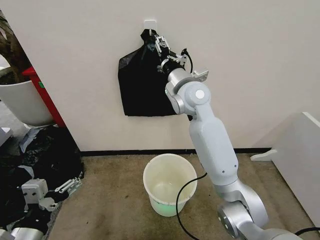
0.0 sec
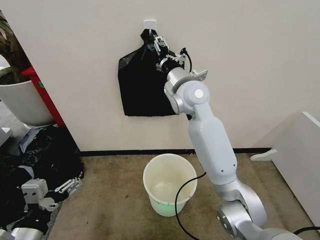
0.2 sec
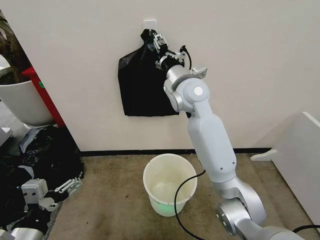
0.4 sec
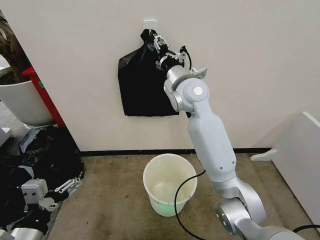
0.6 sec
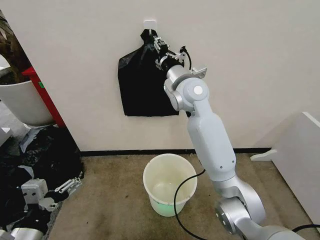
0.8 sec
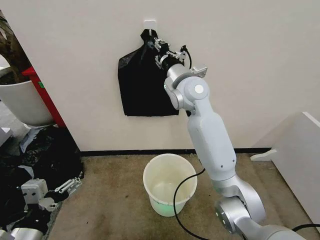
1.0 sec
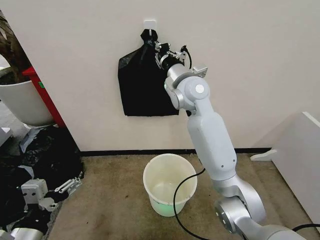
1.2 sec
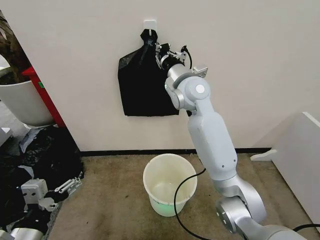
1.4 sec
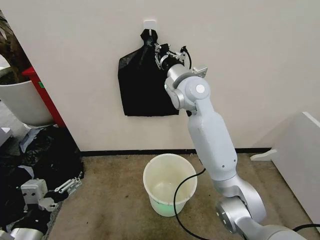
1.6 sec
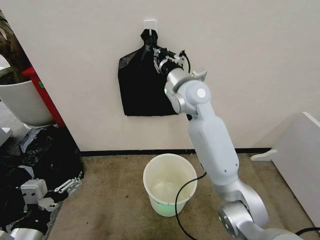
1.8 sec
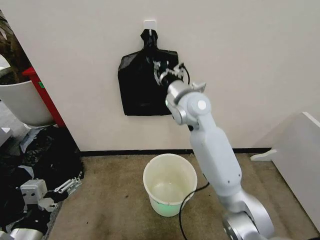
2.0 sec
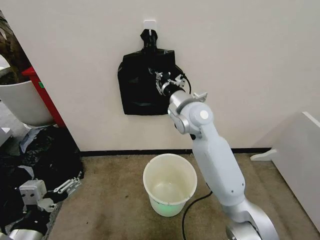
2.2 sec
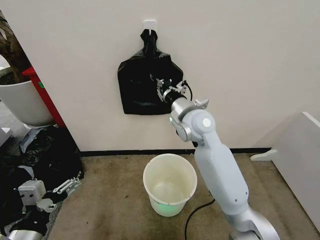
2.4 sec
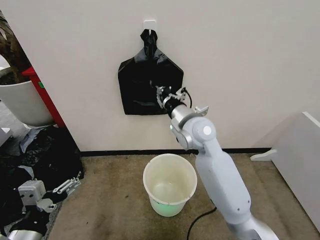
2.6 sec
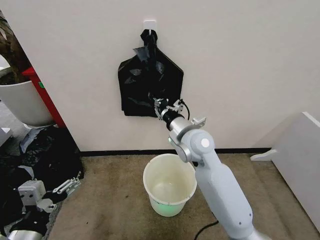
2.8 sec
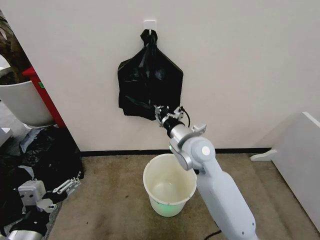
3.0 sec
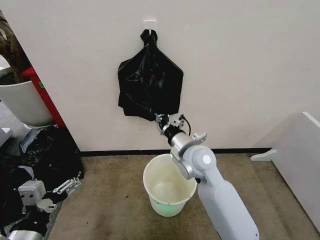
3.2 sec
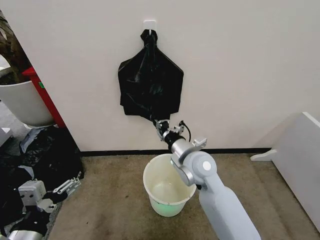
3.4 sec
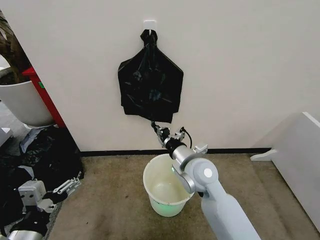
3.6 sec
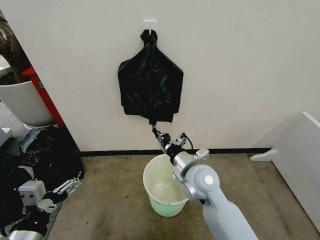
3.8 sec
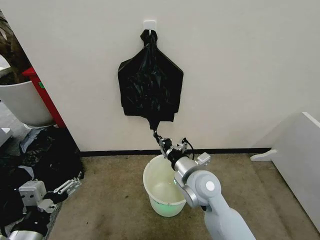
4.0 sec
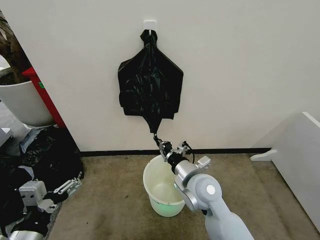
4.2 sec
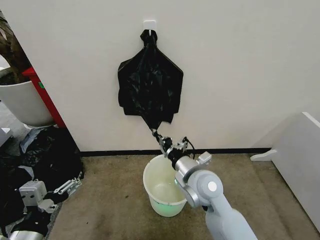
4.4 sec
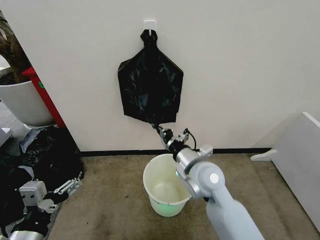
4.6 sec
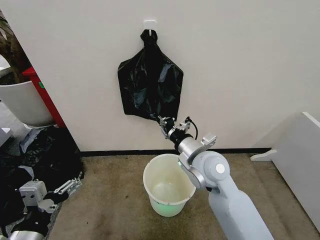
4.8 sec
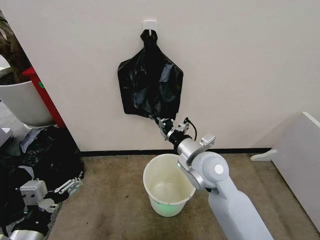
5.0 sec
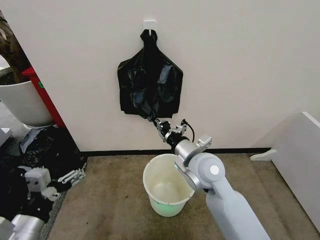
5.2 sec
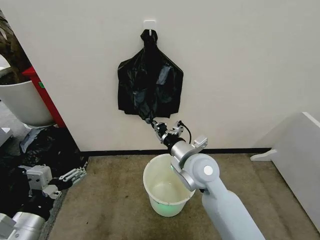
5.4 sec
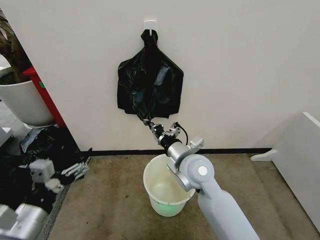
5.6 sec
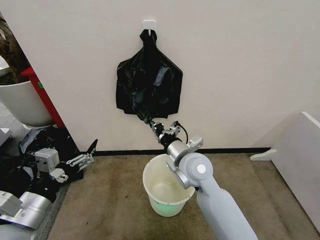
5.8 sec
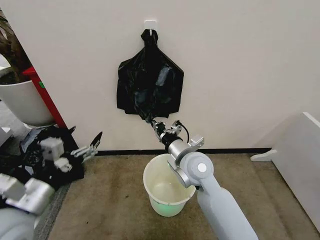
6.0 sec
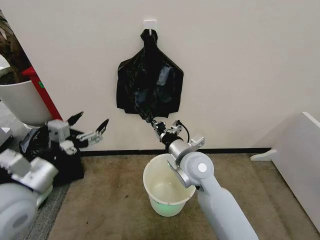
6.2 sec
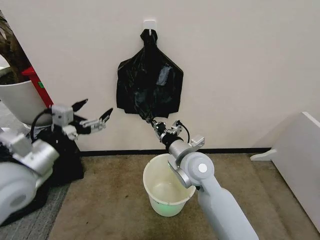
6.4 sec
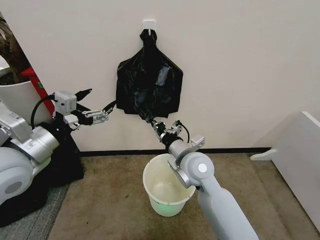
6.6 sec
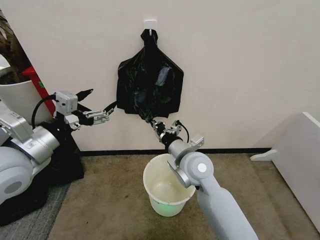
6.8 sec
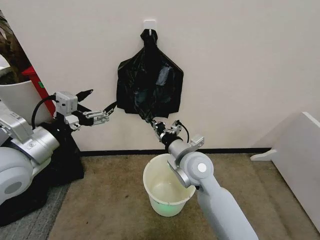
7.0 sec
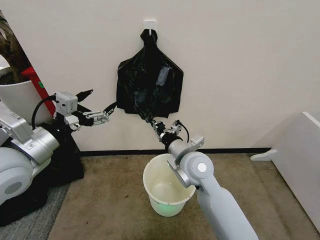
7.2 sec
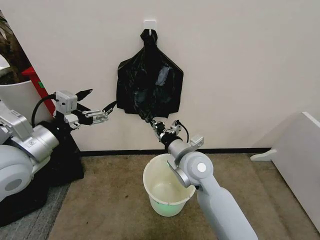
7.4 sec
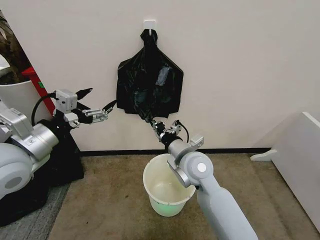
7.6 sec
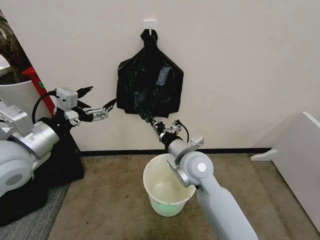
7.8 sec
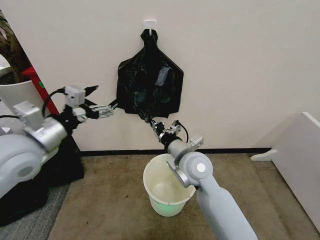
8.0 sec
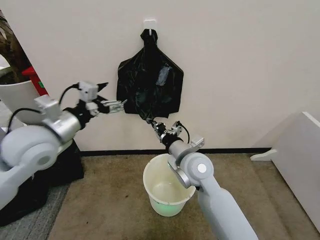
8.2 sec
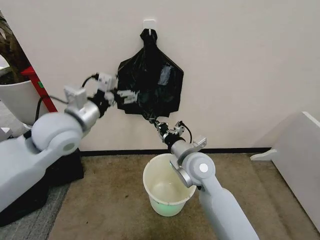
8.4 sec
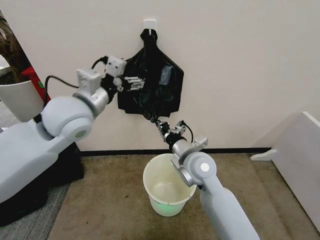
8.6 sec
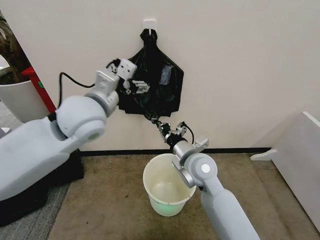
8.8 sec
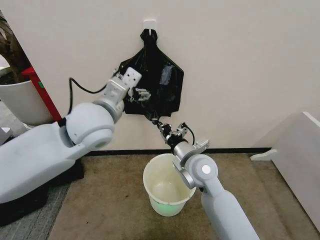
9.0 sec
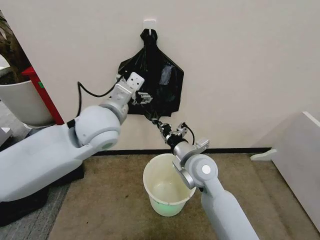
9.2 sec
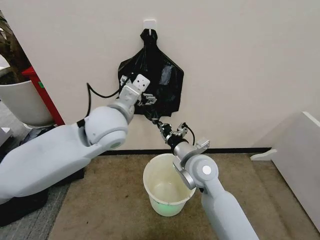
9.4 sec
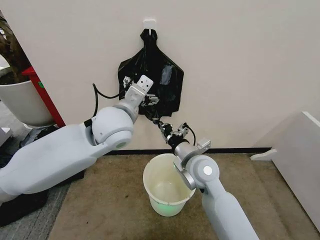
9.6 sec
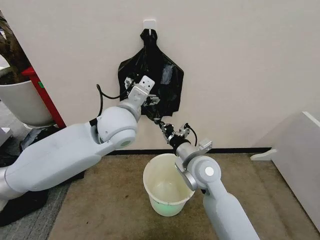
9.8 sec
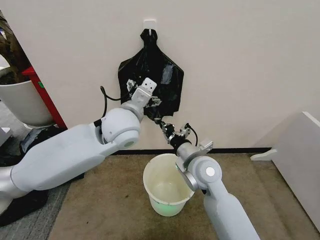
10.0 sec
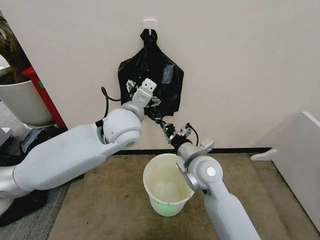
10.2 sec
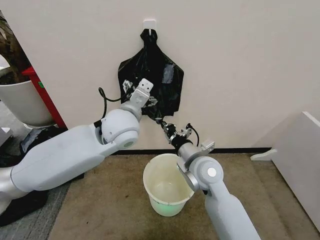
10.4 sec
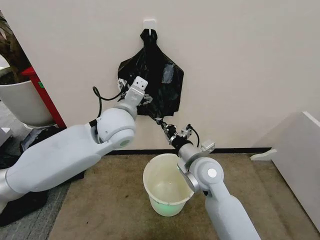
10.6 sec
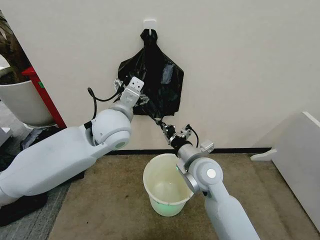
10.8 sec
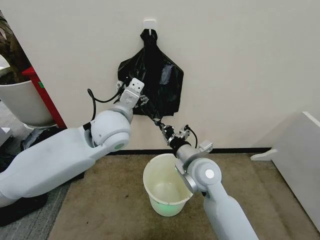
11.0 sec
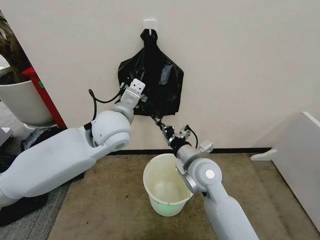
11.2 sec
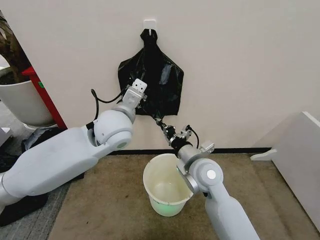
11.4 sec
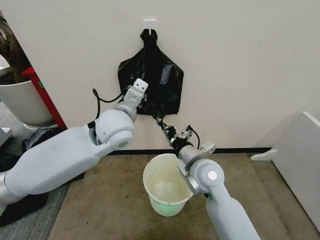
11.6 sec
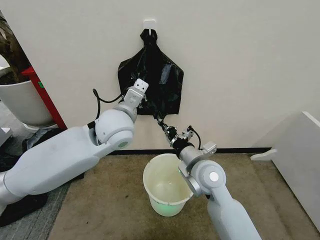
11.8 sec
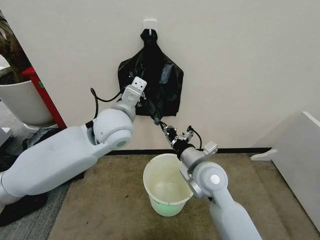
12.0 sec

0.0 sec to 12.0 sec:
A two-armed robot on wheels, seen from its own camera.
Task of the whole recording: Place the garbage bag over the trash bin.
0.0 sec to 1.6 sec: The right gripper closes.
1.6 sec to 3.0 sec: The right gripper travels downward and backward by roughly 15 cm.
3.0 sec to 4.4 sec: The right gripper heads backward and downward, covering approximately 10 cm.
4.4 sec to 6.0 sec: The right gripper ends up roughly 5 cm from where it was; the left gripper heads forward and upward, covering roughly 10 cm.
6.0 sec to 7.6 sec: The left gripper is displaced upward and forward by approximately 10 cm.
7.6 sec to 9.0 sec: The left gripper goes some 20 cm to the right and forward.
9.0 sec to 10.4 sec: The left gripper shifts some 5 cm to the right.
10.4 sec to 12.0 sec: The left gripper closes.

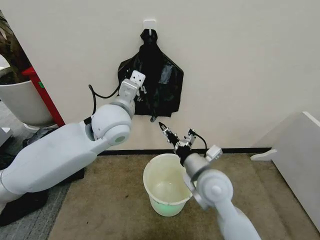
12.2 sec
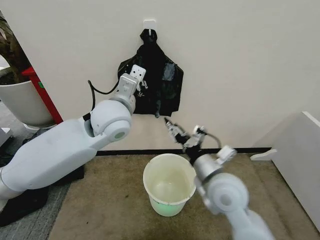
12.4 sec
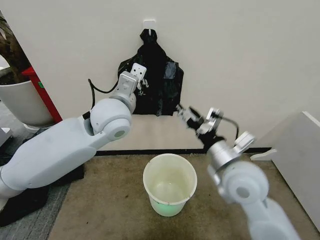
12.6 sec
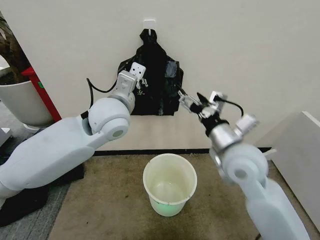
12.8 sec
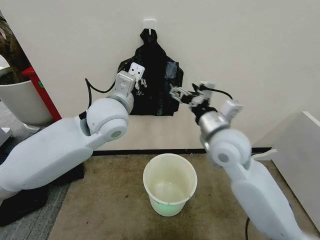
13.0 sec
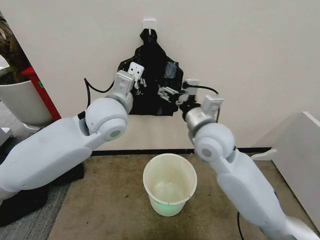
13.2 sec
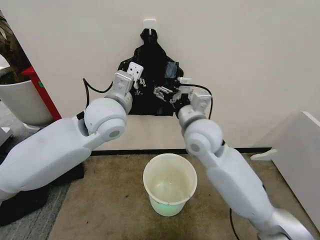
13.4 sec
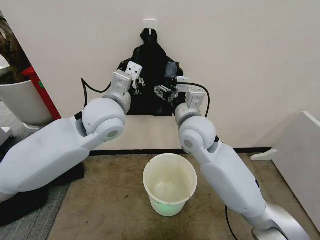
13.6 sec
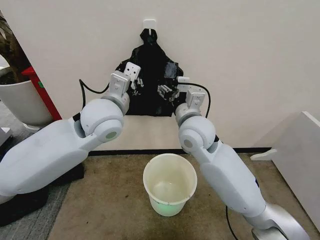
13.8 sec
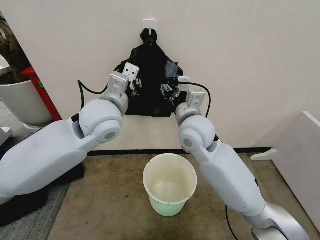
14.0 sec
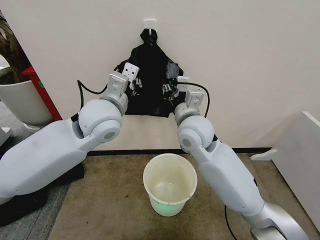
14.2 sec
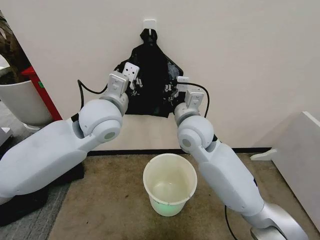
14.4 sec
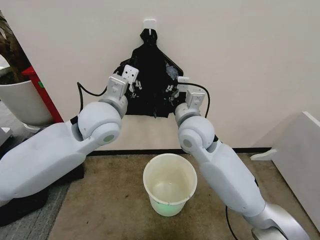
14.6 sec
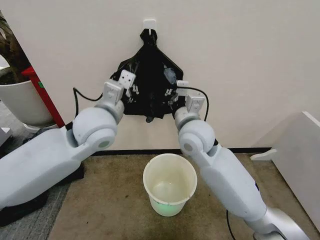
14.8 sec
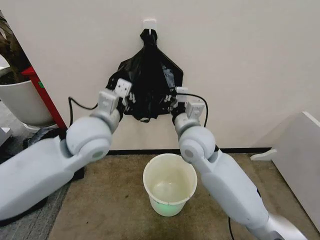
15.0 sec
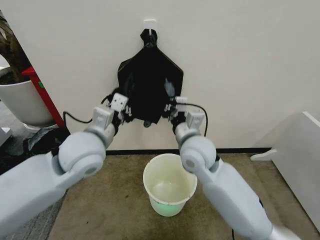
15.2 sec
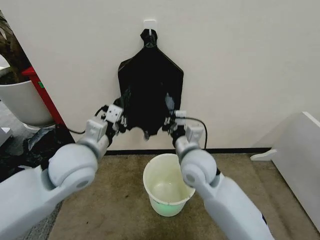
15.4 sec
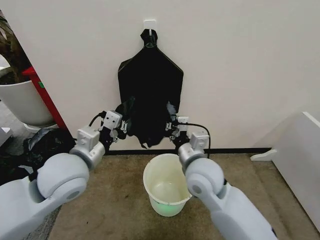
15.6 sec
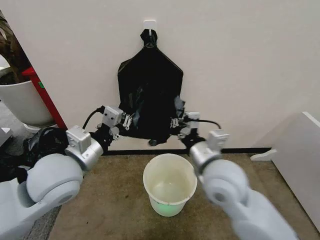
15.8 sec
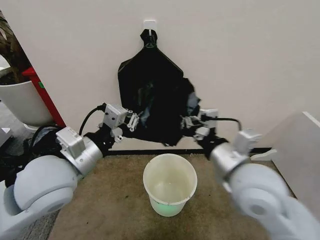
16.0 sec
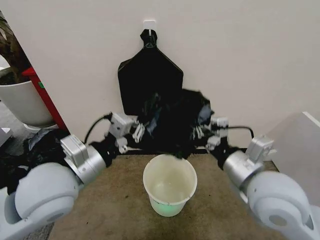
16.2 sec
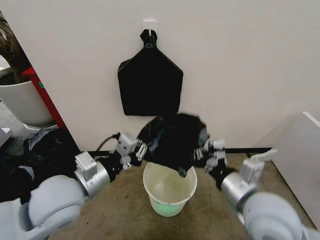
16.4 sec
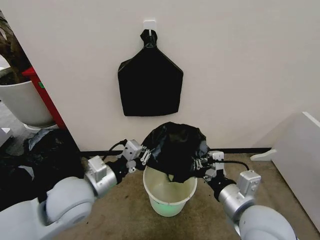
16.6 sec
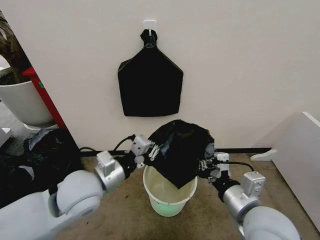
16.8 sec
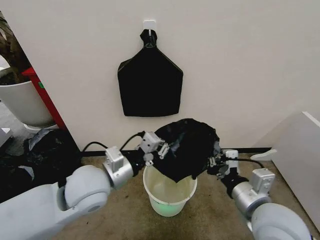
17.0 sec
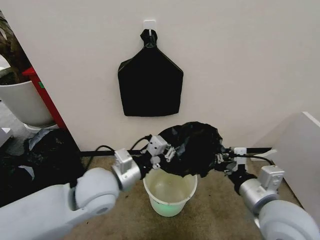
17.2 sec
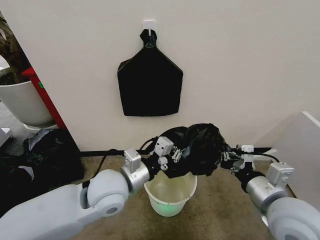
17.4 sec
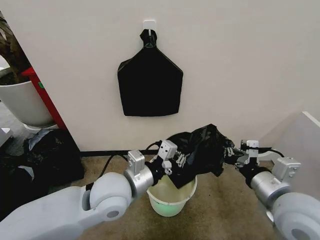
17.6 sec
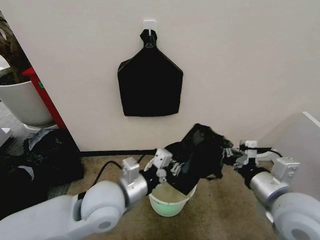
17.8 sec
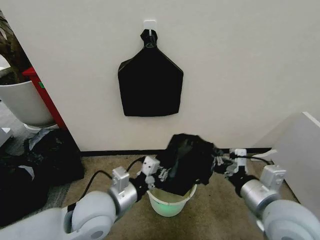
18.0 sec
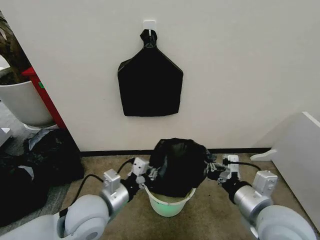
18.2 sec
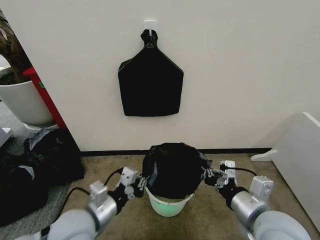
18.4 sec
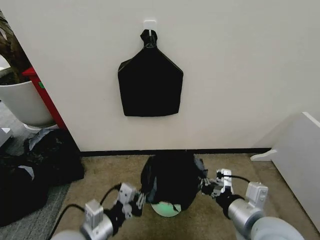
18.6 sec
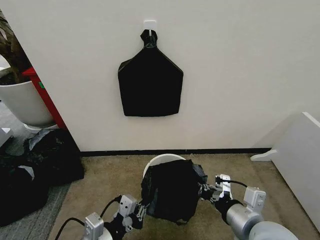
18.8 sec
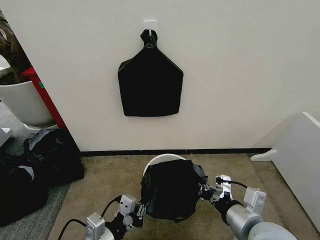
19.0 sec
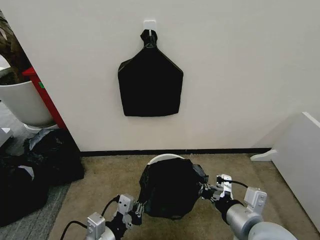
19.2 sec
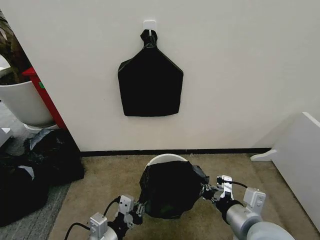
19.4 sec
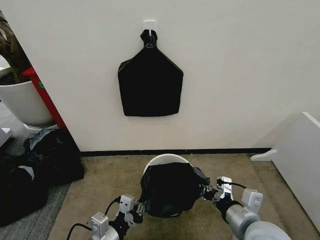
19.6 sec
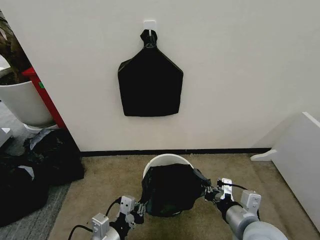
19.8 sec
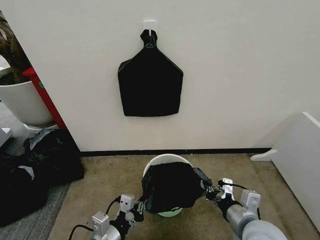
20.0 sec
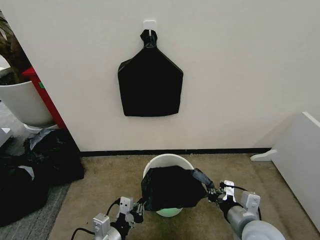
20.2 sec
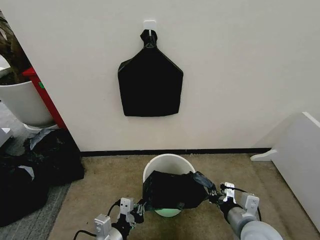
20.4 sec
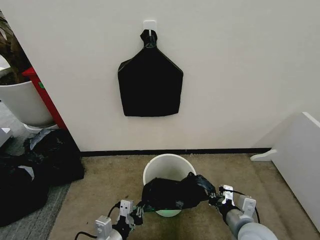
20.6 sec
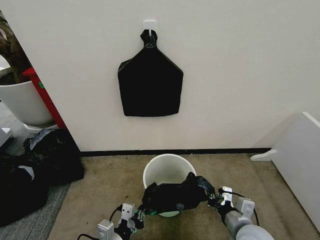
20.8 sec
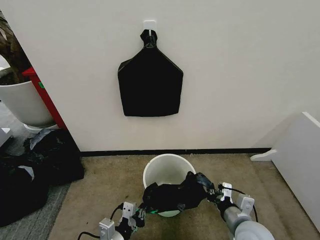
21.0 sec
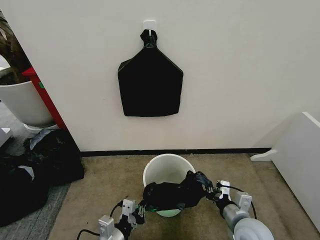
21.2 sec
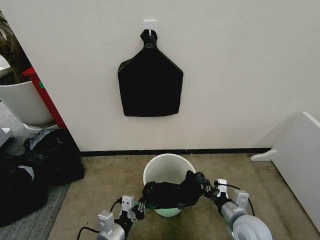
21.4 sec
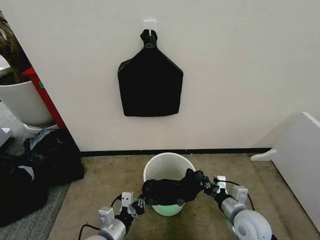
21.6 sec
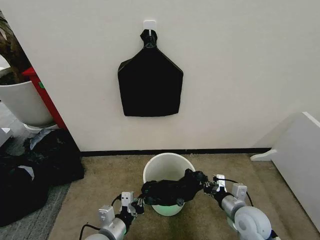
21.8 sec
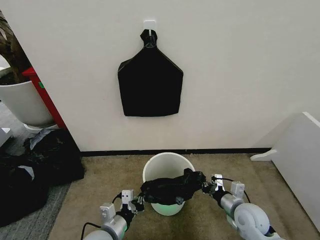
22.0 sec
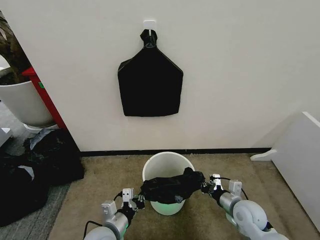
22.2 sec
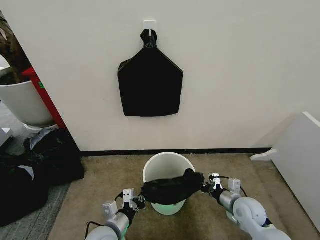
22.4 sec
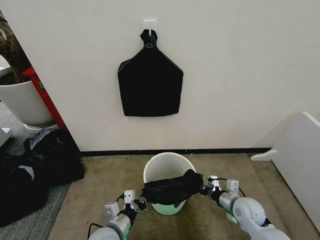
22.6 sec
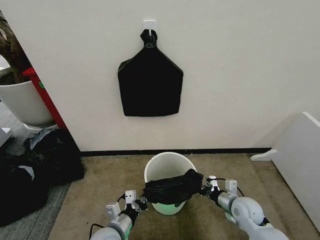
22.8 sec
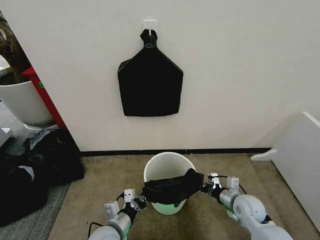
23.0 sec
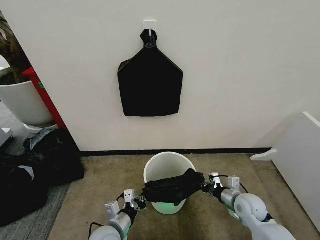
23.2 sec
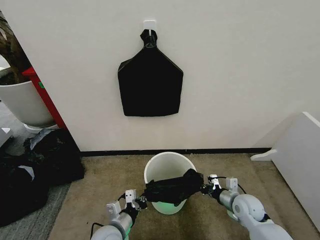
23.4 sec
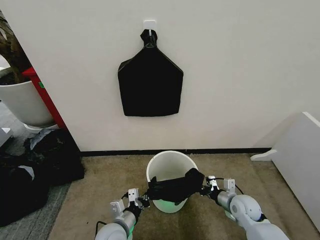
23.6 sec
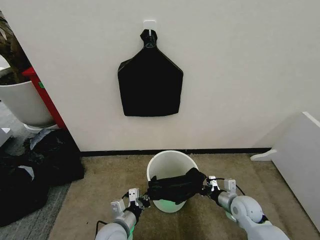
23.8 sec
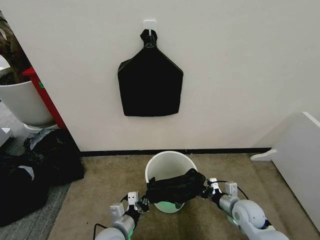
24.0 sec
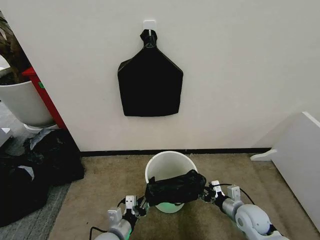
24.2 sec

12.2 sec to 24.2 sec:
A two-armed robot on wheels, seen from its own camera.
Task of the whole recording: Place the garbage bag over the trash bin.
12.2 sec to 13.8 sec: The right gripper heads upward and forward, covering approximately 15 cm, and opens.
13.8 sec to 15.2 sec: The left gripper heads backward and downward, covering some 10 cm, while the right gripper travels downward by approximately 5 cm, and closes.
15.2 sec to 16.6 sec: The left gripper shifts approximately 10 cm downward and backward. Meanwhile the right gripper goes some 20 cm backward and to the right.
16.6 sec to 18.2 sec: The left gripper goes to the right and returns, roughly 10 cm each way.
18.2 sec to 19.8 sec: The left gripper moves backward and downward, some 10 cm; the right gripper moves downward, about 5 cm.
19.8 sec to 21.2 sec: The right gripper travels downward by approximately 10 cm.
21.2 sec to 22.6 sec: The left gripper changes place by about 5 cm; the right gripper travels forward and downward by about 10 cm.
22.6 sec to 24.2 sec: The left gripper opens its fingers; the right gripper opens up.
